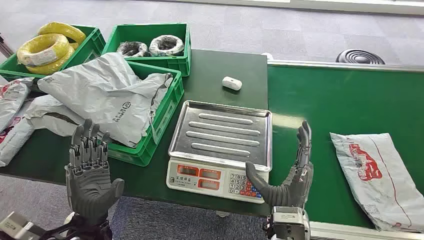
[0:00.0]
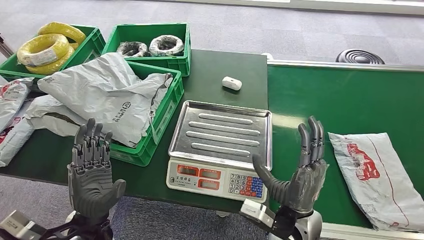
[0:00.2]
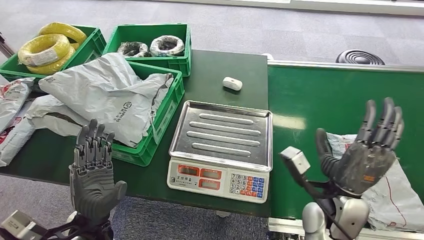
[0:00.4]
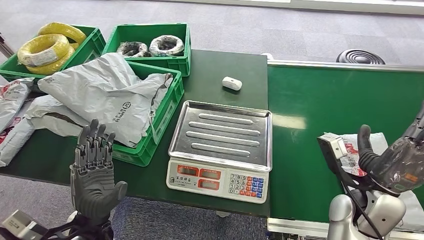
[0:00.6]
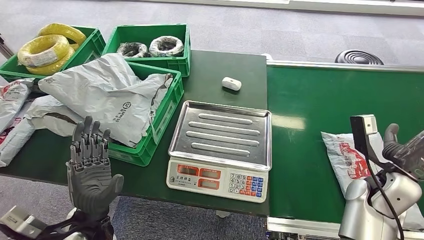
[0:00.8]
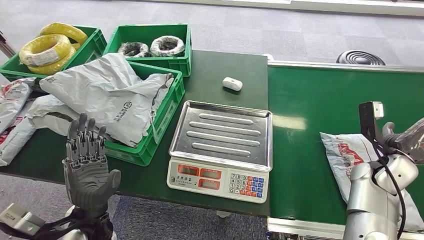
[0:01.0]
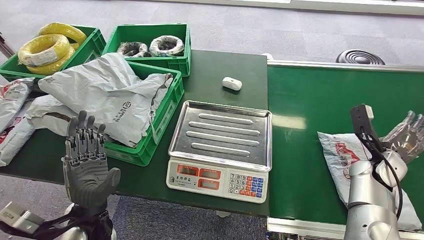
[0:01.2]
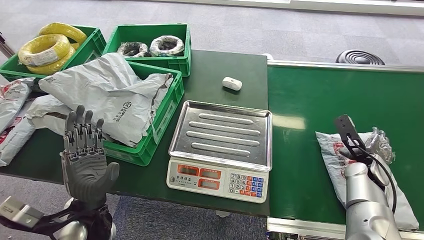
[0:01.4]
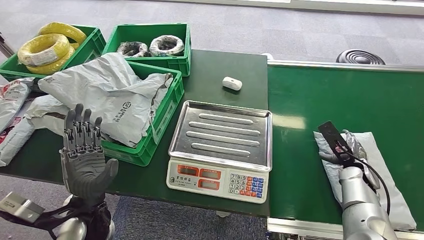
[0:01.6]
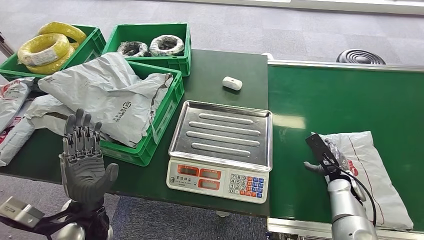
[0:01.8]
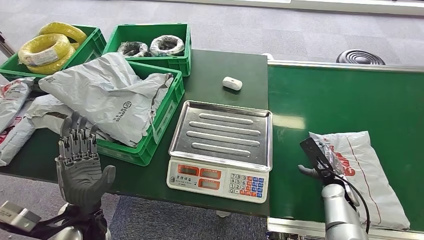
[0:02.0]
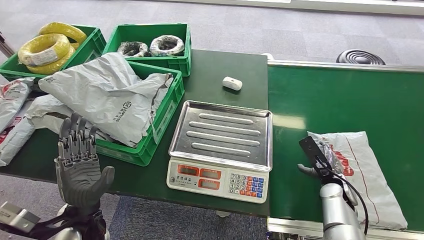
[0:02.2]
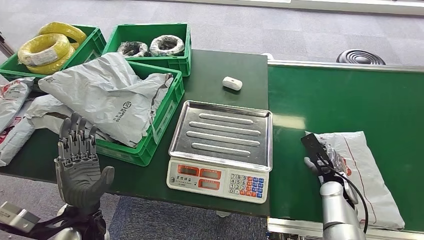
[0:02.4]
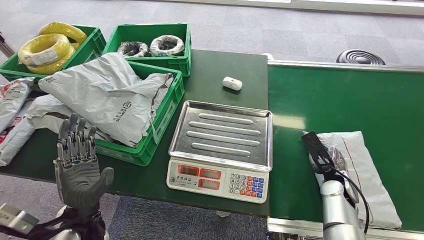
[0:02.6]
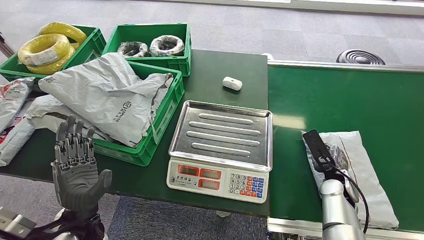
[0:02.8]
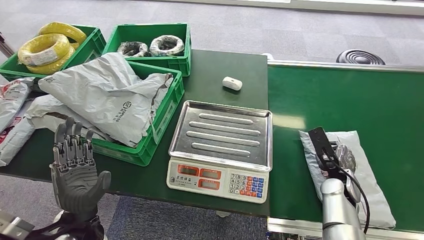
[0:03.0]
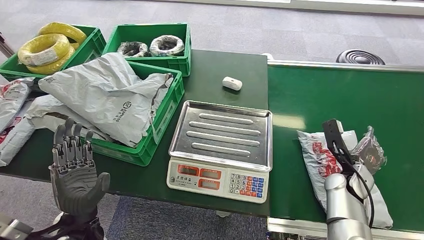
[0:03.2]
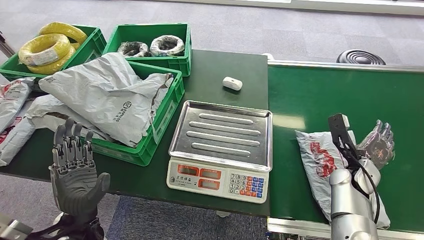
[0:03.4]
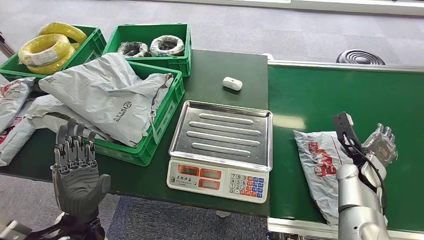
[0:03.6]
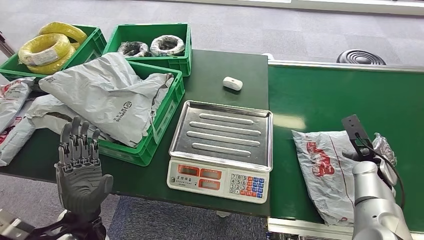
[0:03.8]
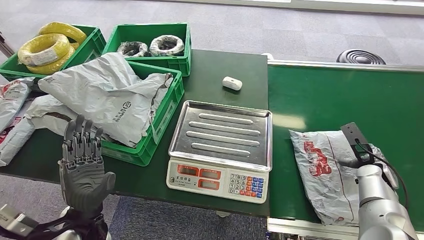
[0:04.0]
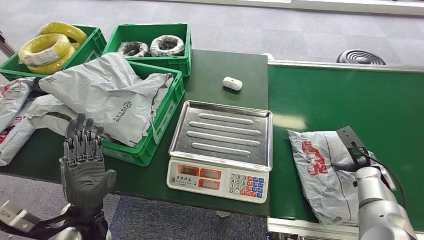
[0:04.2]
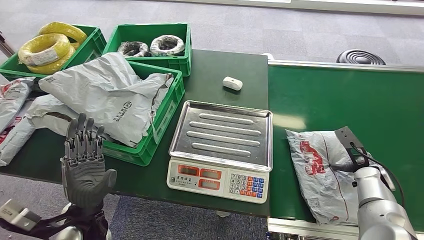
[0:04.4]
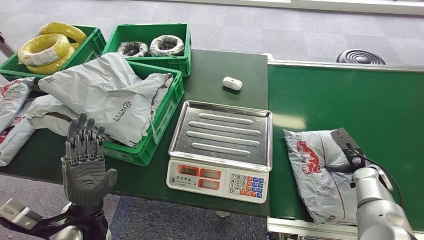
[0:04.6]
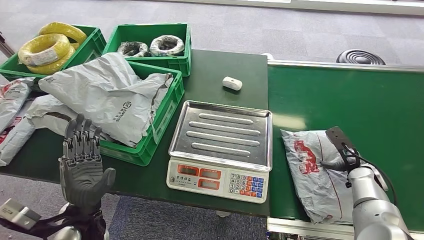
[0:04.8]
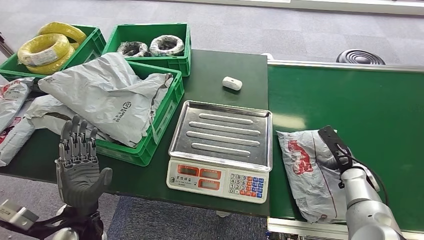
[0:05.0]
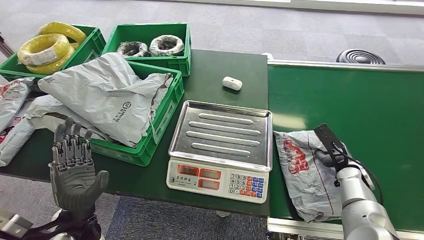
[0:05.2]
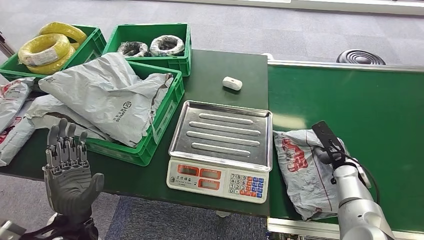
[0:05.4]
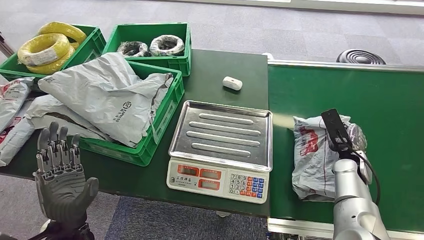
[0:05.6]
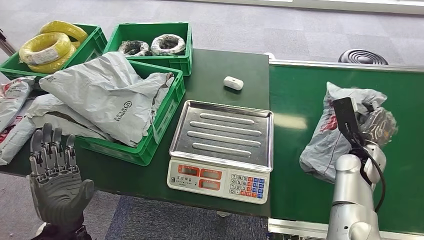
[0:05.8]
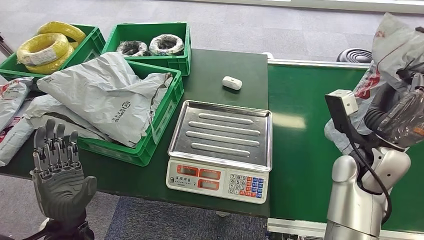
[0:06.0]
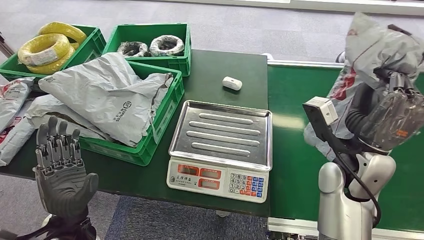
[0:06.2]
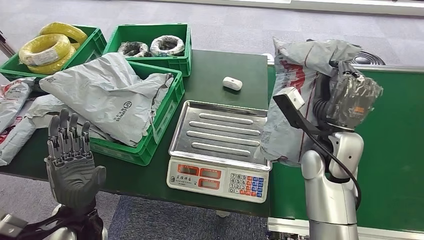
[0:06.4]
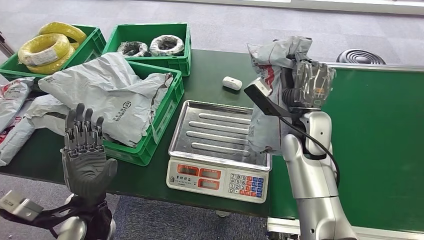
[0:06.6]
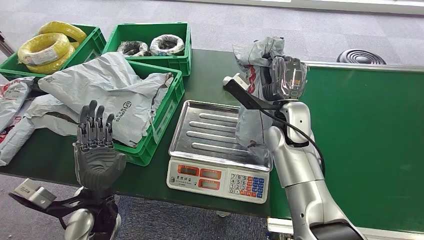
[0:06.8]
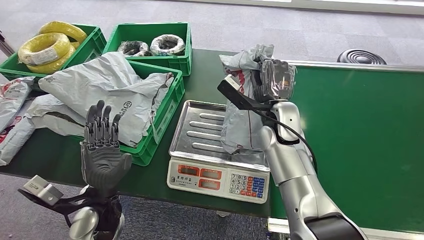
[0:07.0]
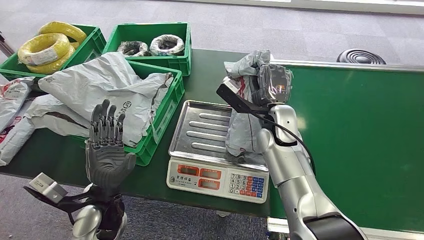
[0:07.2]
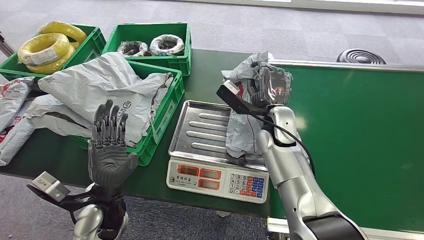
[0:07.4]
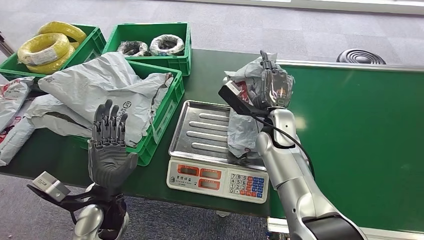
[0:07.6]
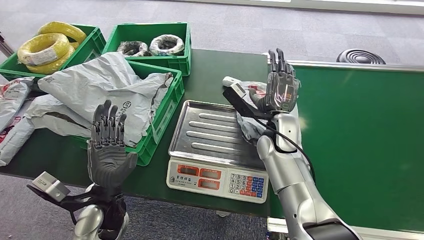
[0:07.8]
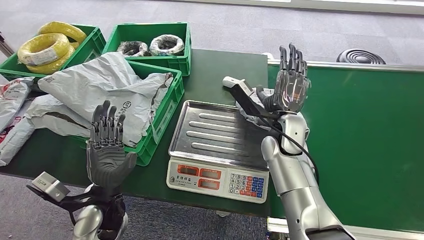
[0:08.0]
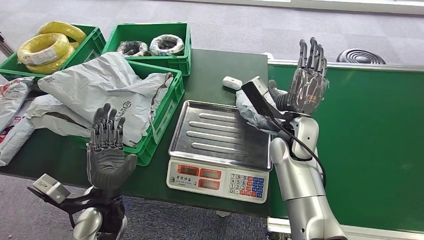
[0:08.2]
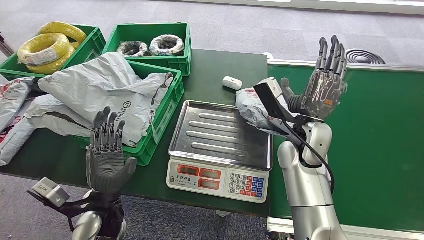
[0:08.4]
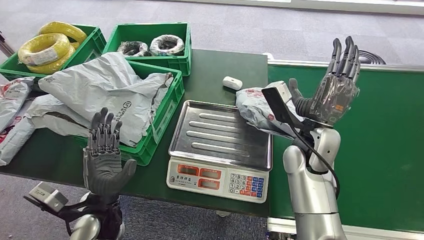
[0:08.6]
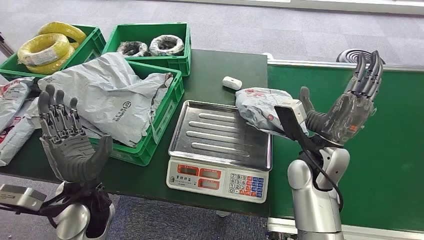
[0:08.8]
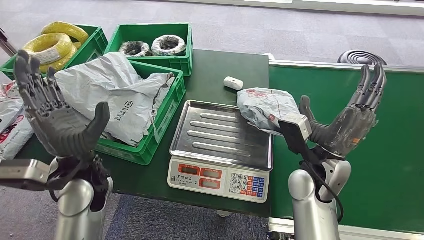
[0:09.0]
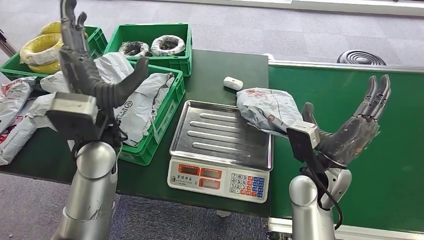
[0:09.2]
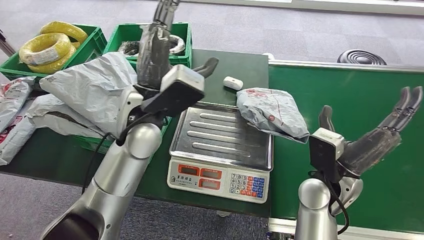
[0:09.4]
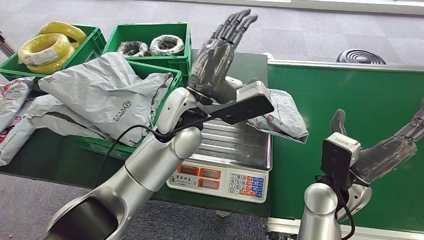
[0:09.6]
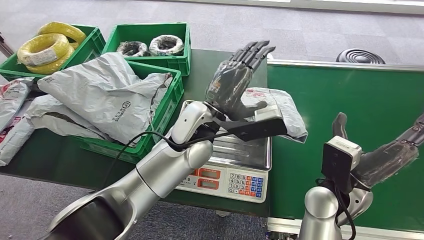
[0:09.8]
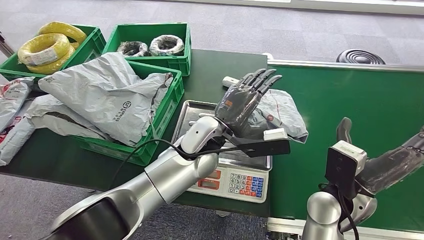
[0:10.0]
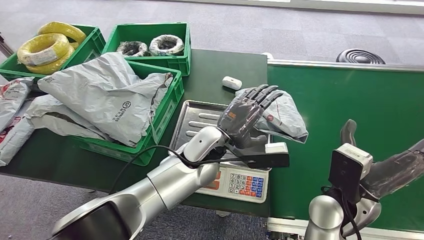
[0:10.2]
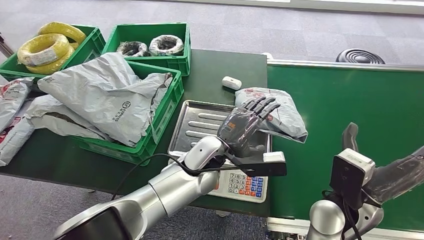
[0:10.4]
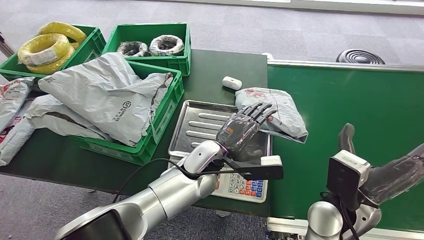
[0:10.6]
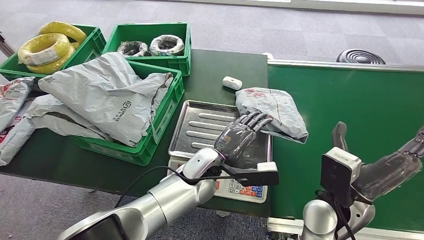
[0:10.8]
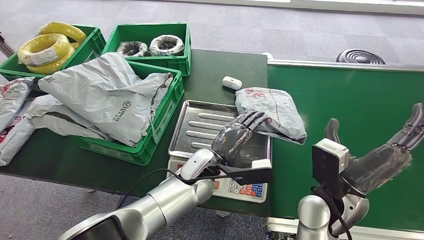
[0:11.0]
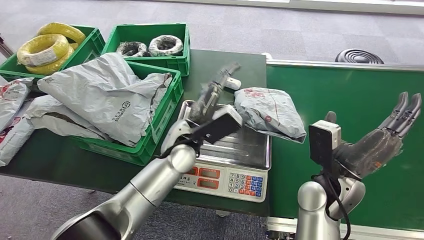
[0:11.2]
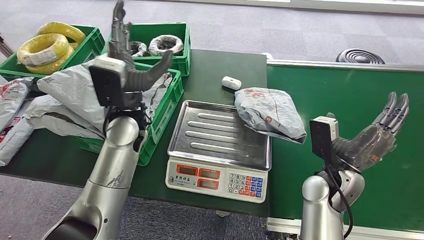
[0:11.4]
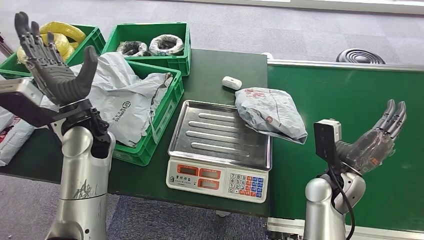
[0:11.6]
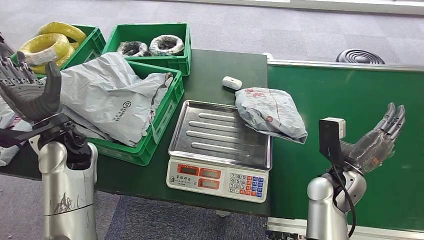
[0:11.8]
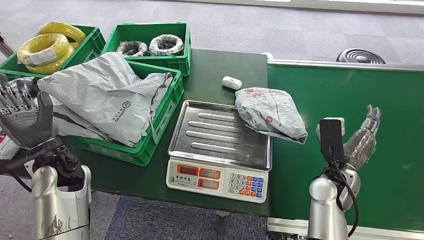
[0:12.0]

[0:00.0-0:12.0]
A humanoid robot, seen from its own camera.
Step, 0:00.0 to 0:06.4: Pick up the package from the conveyor belt.
0:01.6 to 0:03.0: The right hand moves to the left, approximately 5 cm.
0:03.0 to 0:04.4: The right hand shifts some 10 cm to the right.

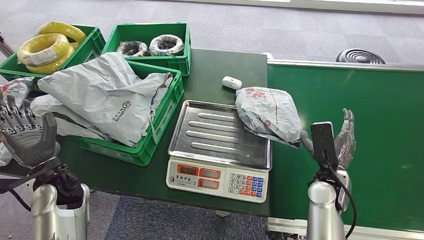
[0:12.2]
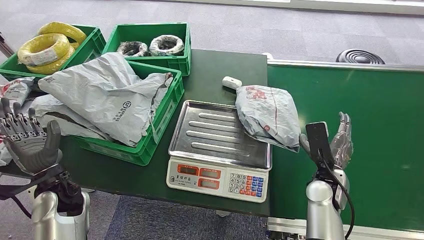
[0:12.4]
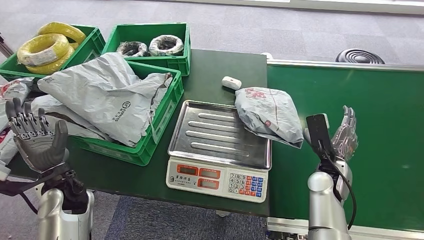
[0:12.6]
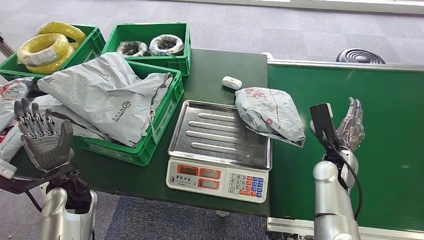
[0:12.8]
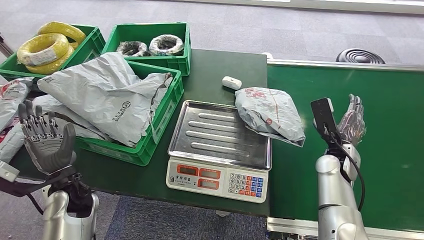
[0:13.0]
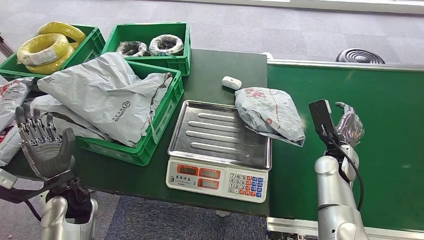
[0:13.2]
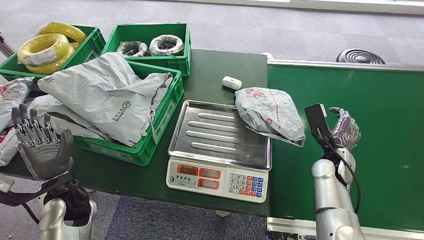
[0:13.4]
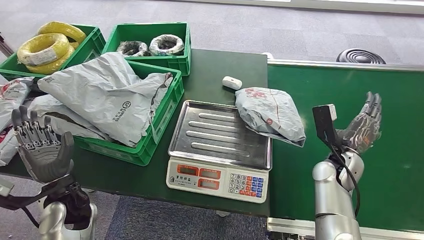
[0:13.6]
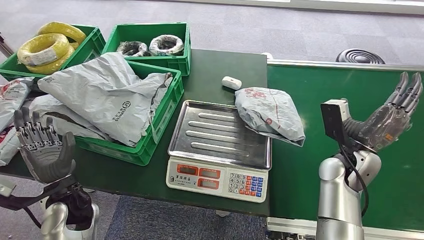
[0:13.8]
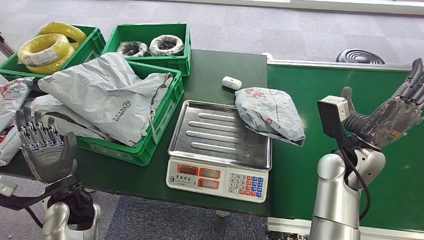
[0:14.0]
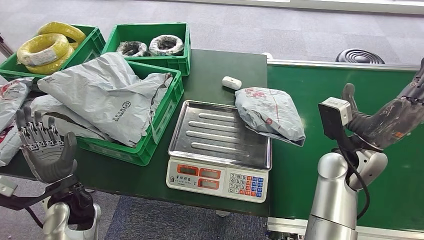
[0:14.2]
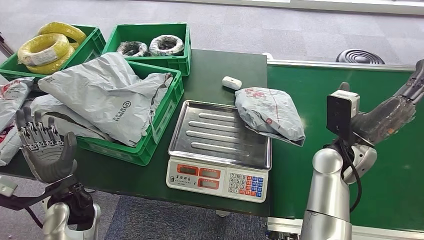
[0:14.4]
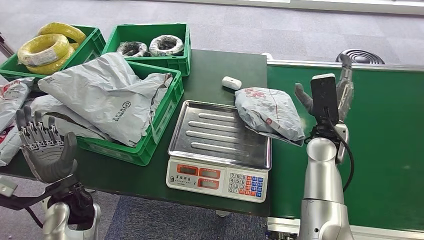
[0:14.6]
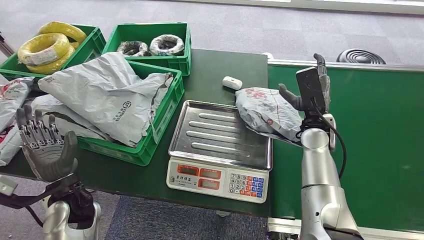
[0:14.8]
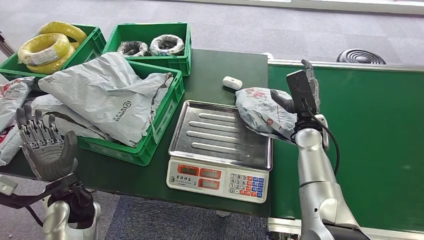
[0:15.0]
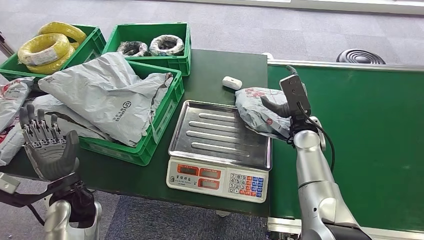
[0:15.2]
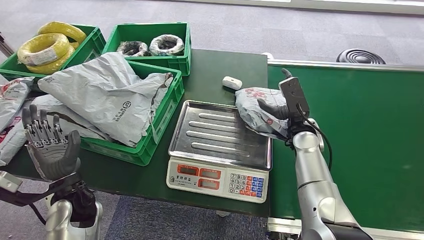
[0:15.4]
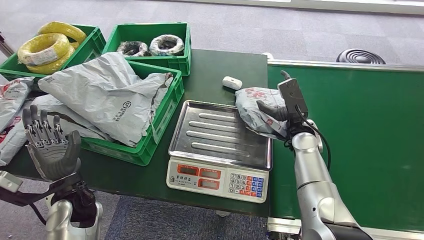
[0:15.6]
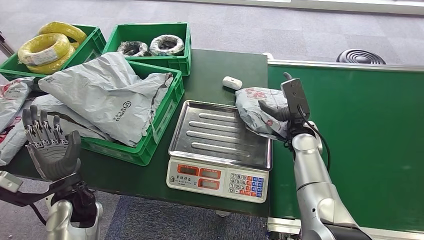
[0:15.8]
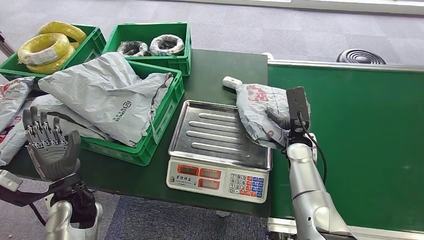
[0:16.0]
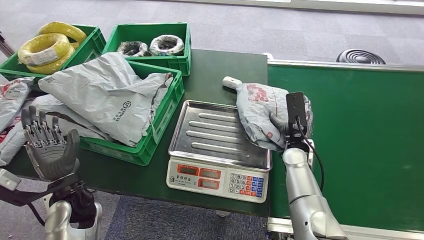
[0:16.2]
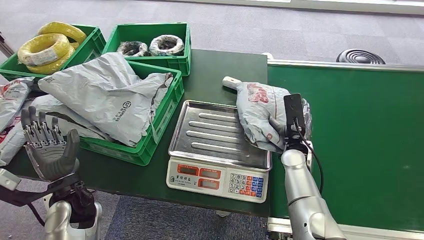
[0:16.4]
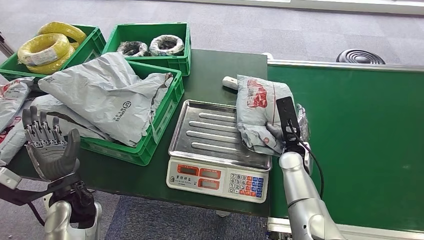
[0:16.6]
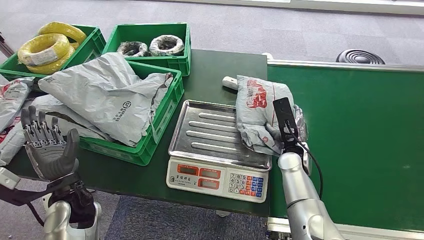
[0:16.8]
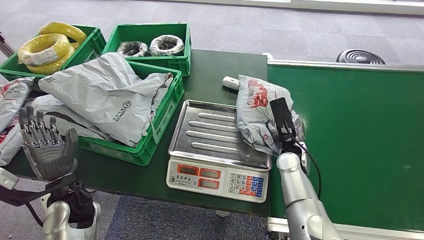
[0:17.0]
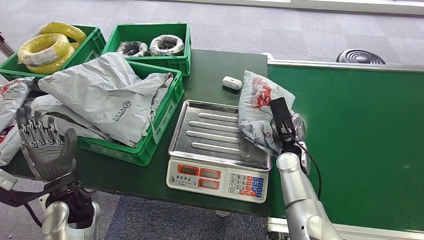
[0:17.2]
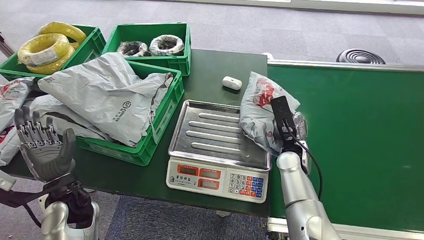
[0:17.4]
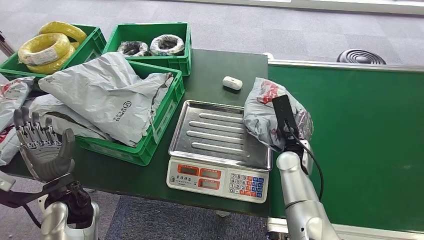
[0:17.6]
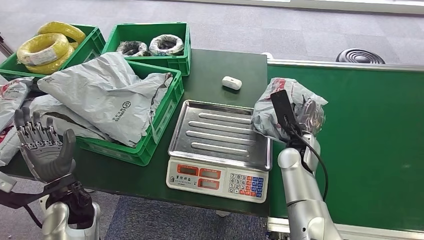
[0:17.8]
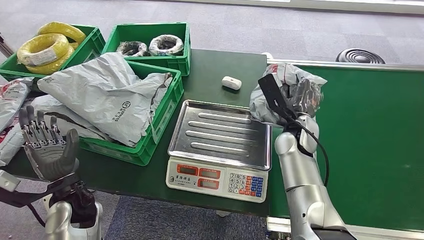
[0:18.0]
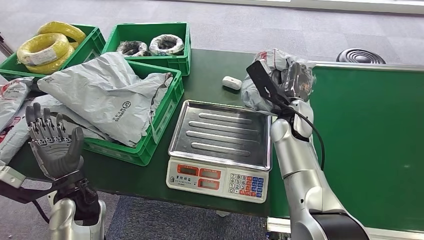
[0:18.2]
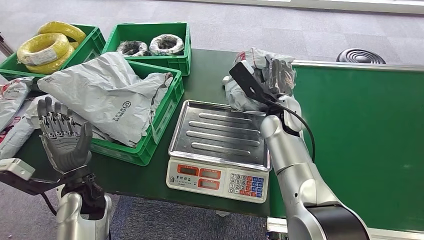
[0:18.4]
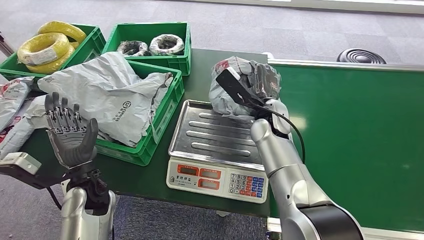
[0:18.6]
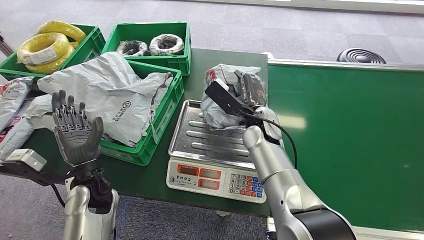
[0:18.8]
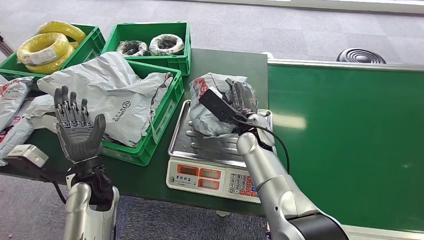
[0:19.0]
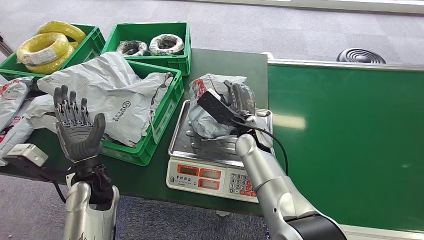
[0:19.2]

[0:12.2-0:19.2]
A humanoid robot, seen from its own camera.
0:12.2 to 0:13.6: The left hand shifts by about 5 cm. Meanwhile the right hand ends up some 5 cm from where it was.
0:13.6 to 0:15.0: The right hand shifts about 10 cm to the left, forward and upward.
0:15.0 to 0:16.4: The right hand travels downward by about 5 cm.
